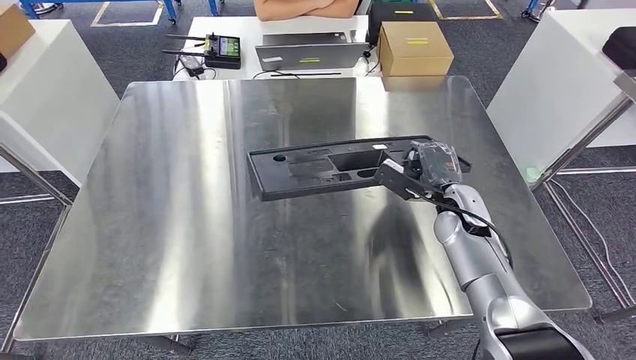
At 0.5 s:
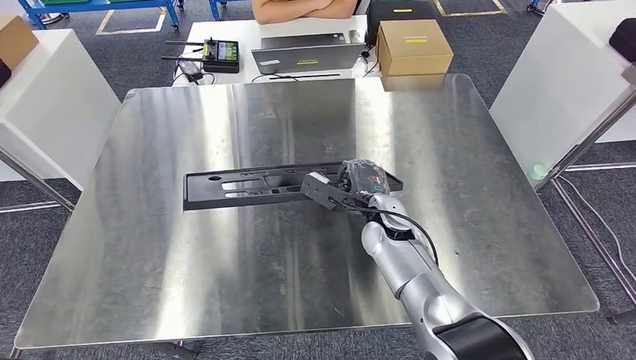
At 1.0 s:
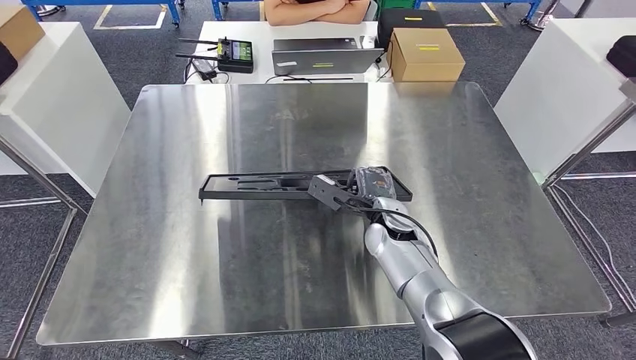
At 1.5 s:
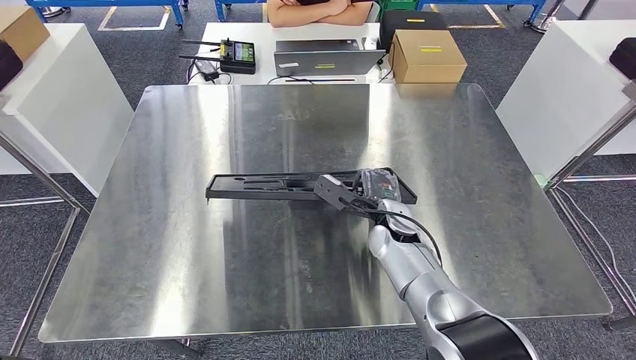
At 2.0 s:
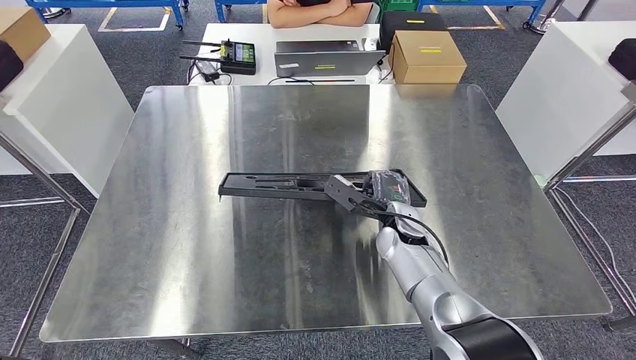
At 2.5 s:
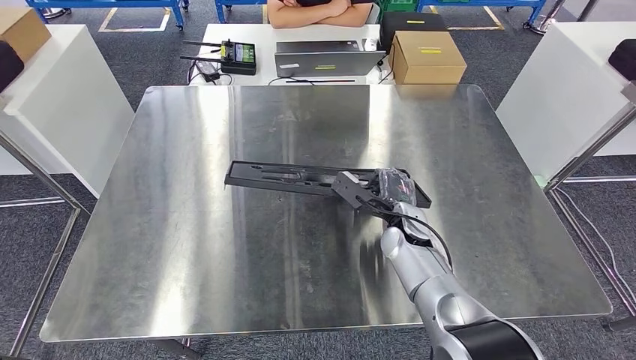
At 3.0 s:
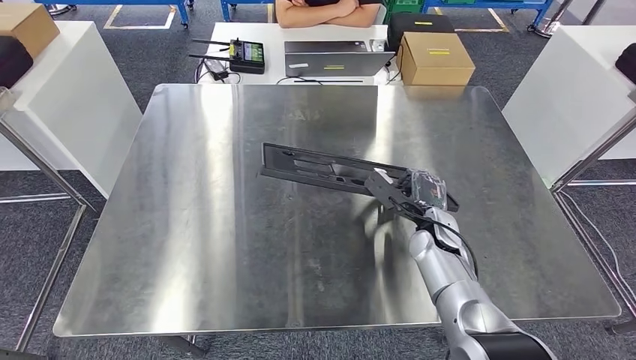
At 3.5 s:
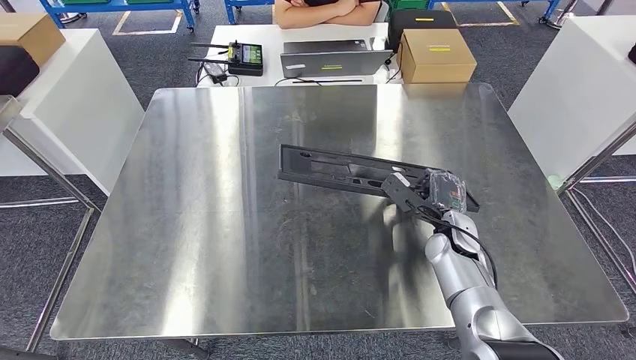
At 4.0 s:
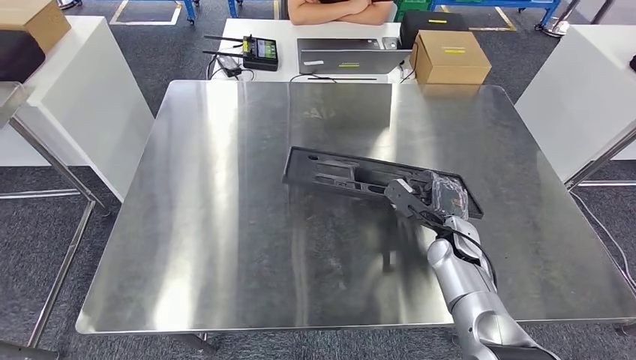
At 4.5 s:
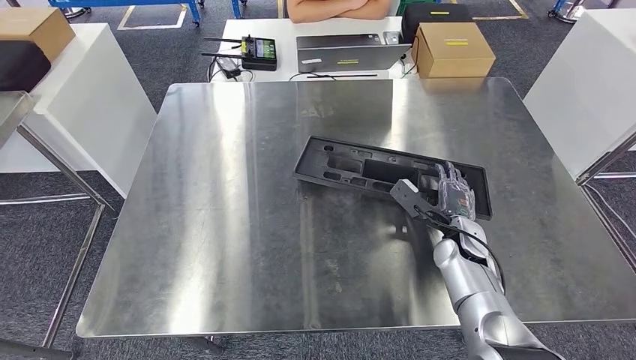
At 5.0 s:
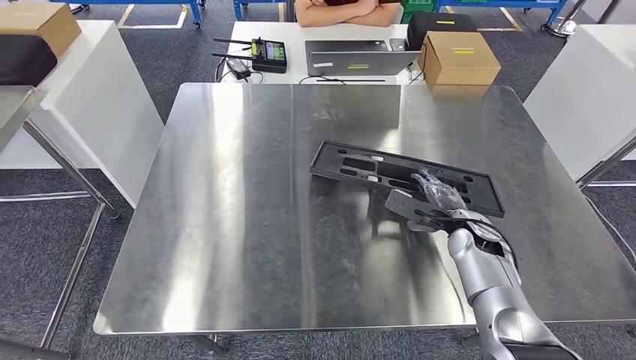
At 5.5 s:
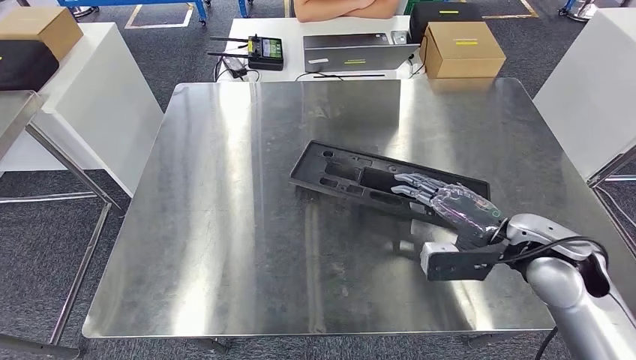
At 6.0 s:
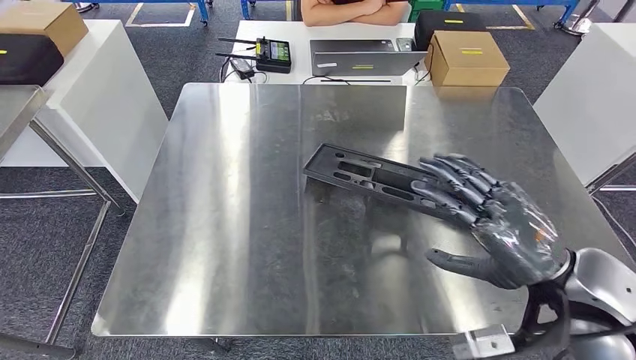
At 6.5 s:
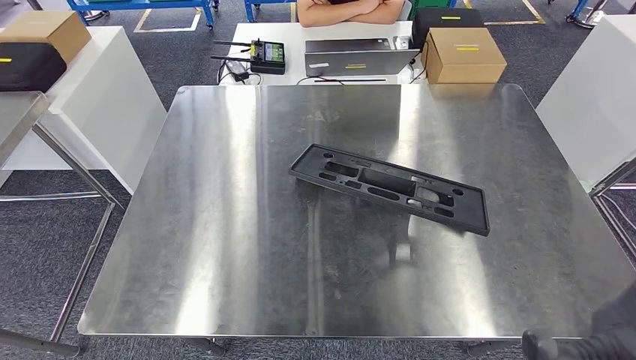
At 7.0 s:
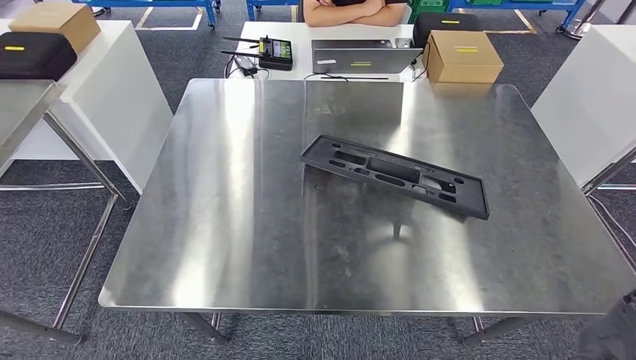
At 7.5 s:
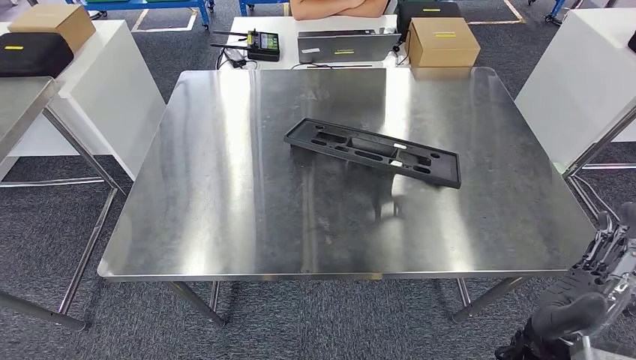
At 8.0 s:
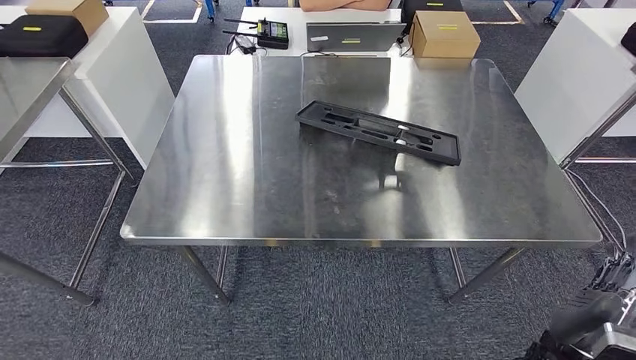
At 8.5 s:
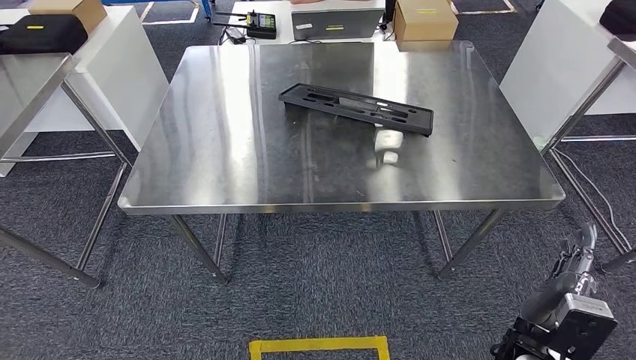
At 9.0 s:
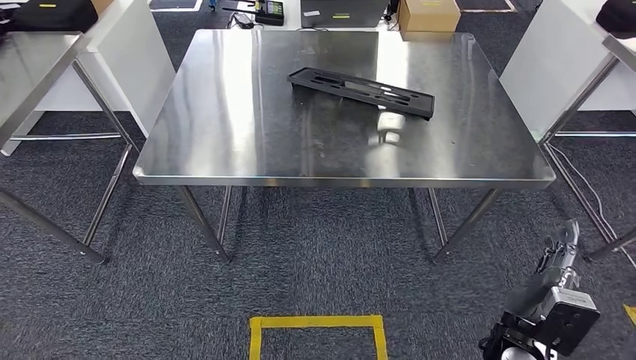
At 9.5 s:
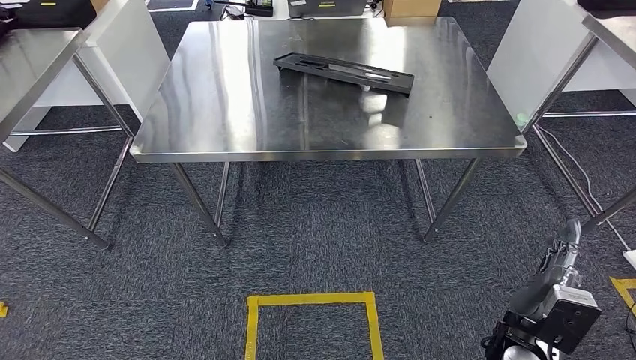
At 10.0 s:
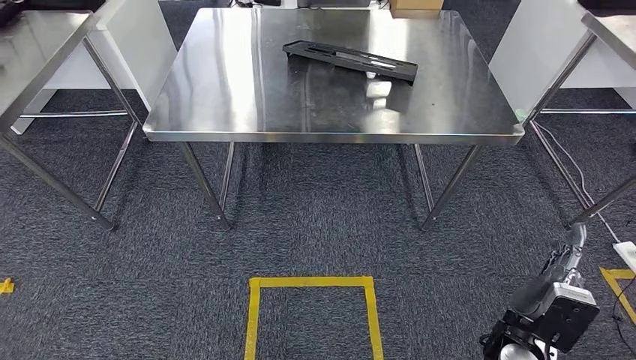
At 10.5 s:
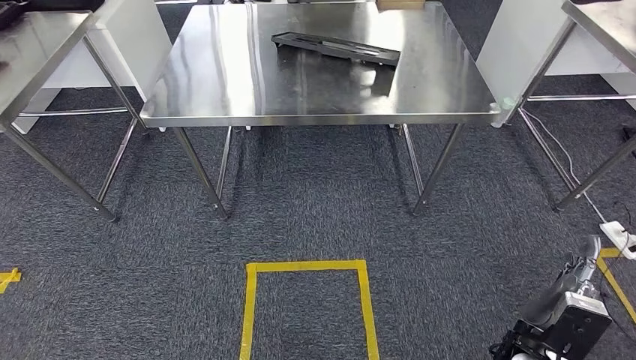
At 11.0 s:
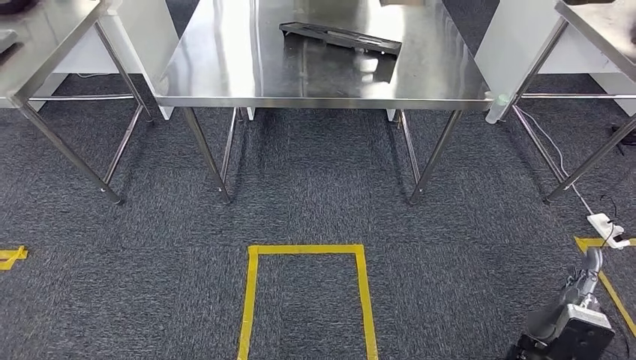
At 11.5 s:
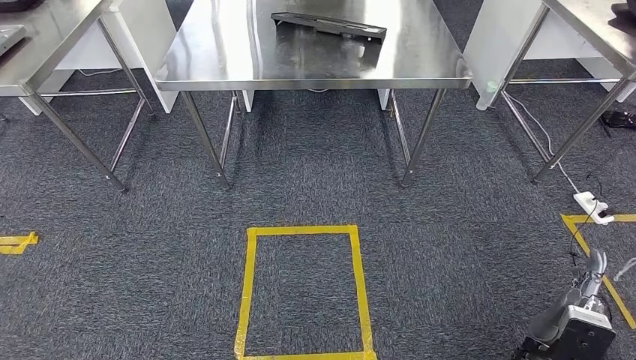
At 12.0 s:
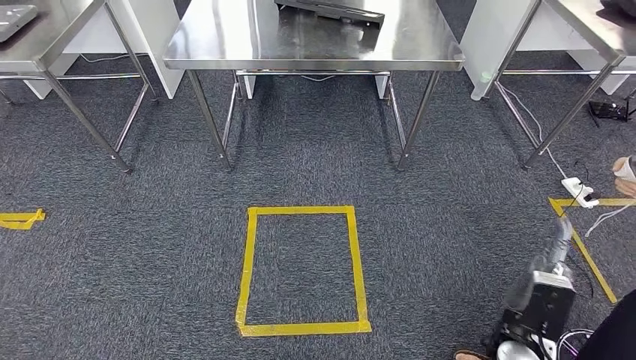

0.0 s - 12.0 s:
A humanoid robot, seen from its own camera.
Step, 0.0 s - 10.5 s: Insert the large material into the corresponding hole on the workbench.

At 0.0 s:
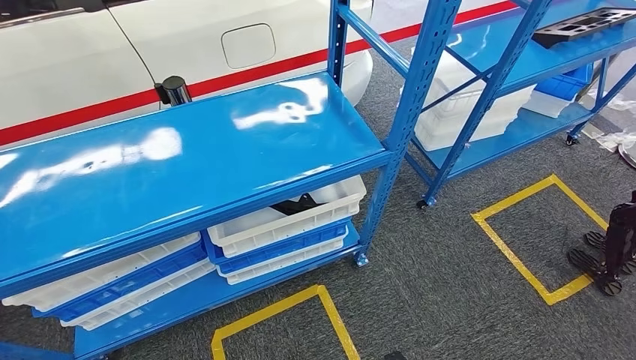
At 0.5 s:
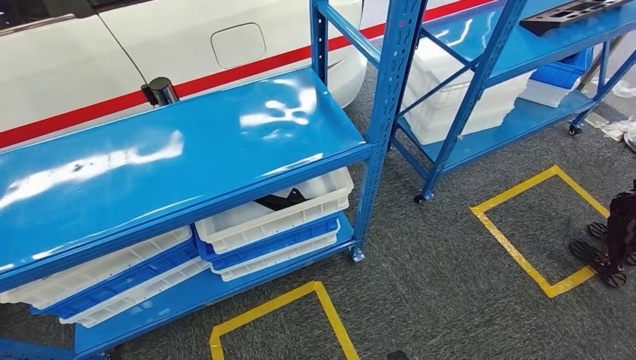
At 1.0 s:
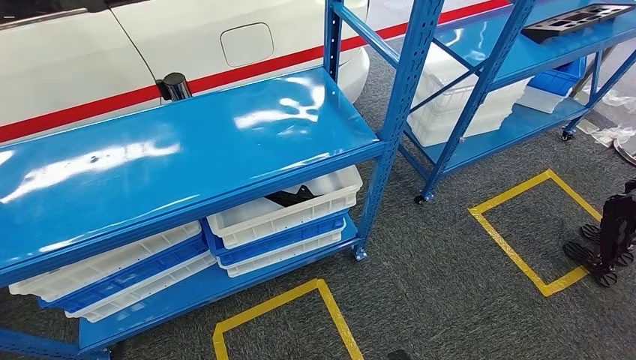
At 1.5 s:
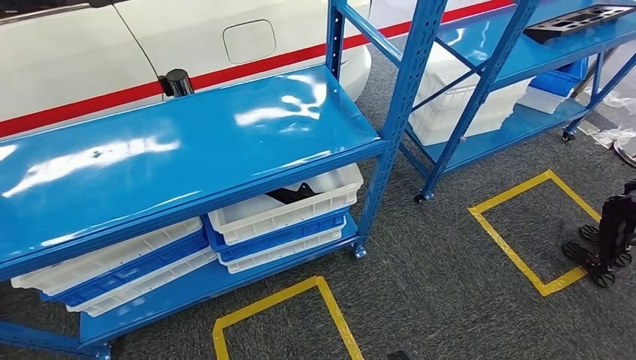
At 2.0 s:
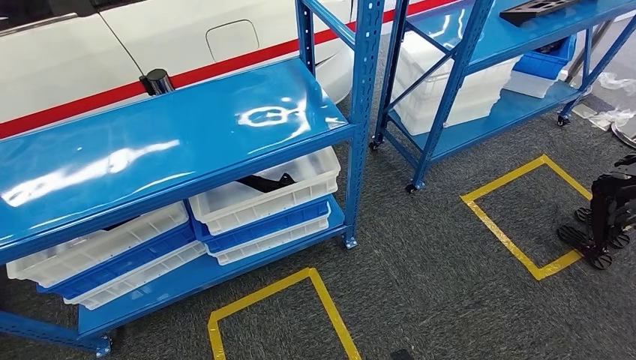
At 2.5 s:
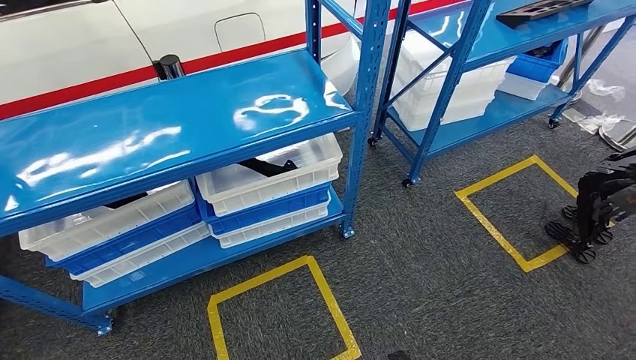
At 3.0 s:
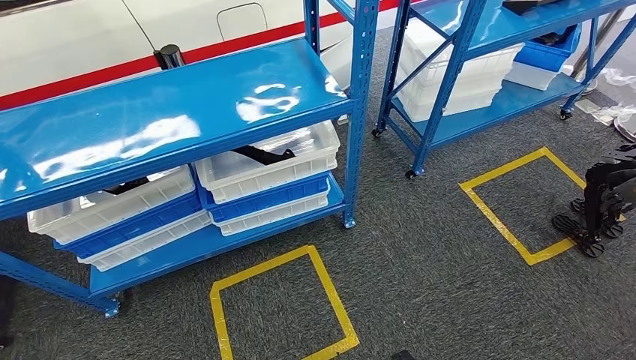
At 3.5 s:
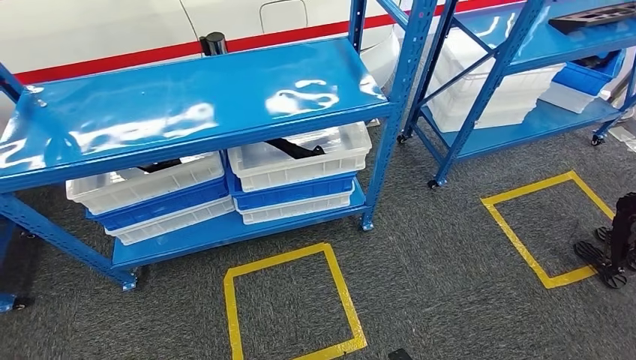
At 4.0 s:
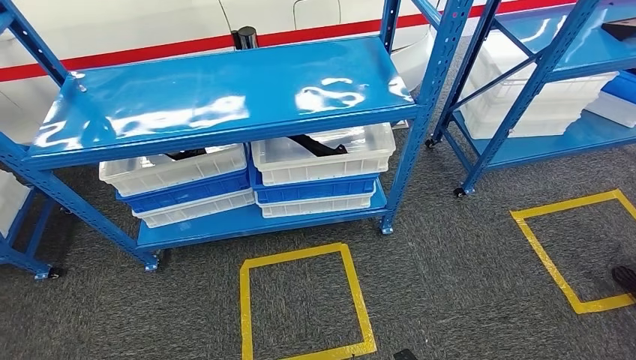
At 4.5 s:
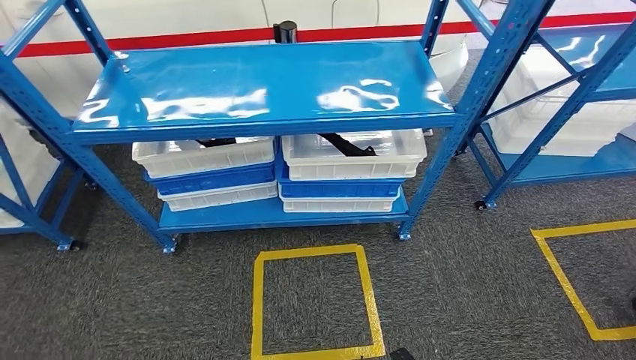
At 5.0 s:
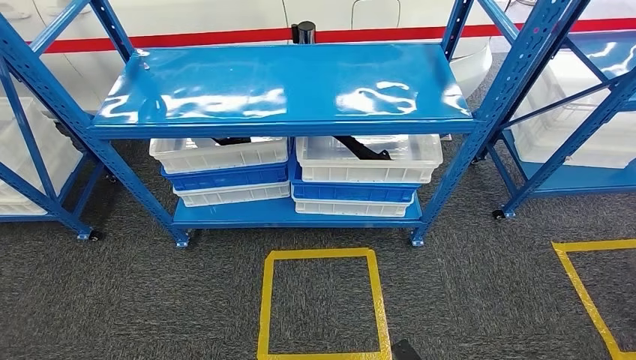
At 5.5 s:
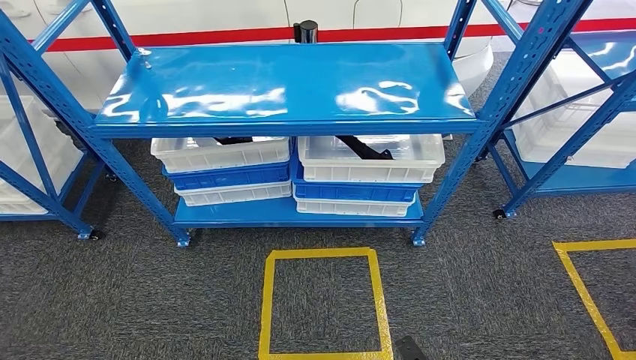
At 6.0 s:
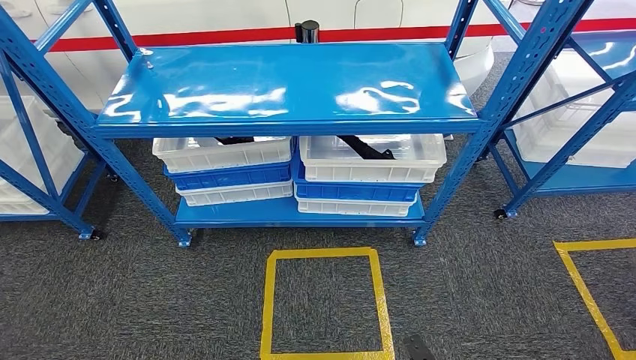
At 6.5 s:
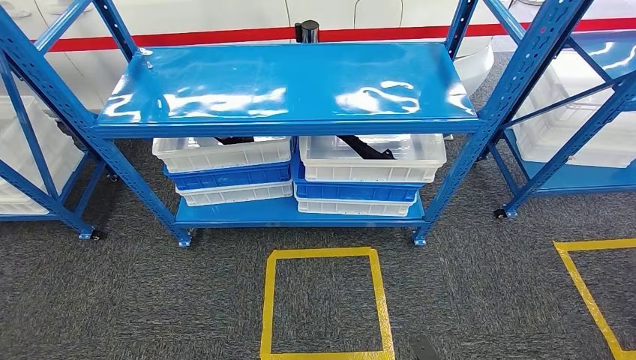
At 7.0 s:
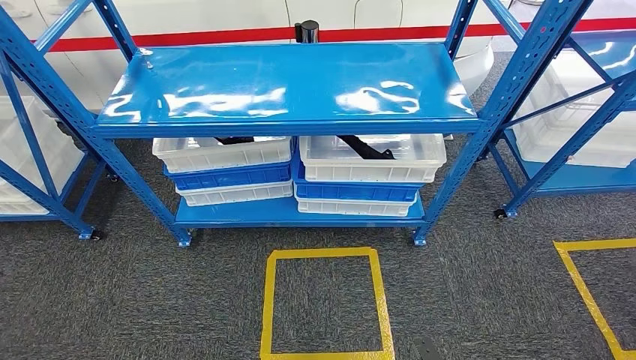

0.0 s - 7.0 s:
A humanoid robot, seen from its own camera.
Step, 0.0 s - 7.0 s: Move to the initial position of the shelf.
5.0 s - 7.0 s: The right hand heads to the right, covering some 5 cm, while the left hand heads backward, covering approximately 5 cm.
